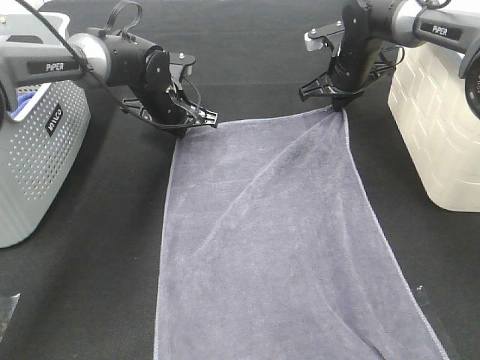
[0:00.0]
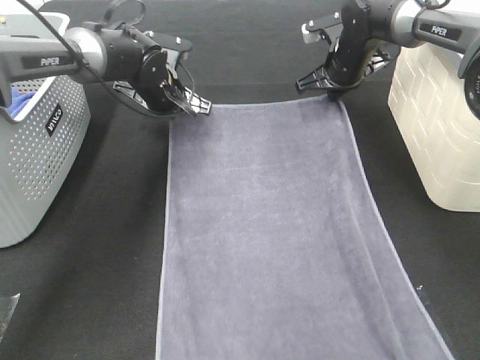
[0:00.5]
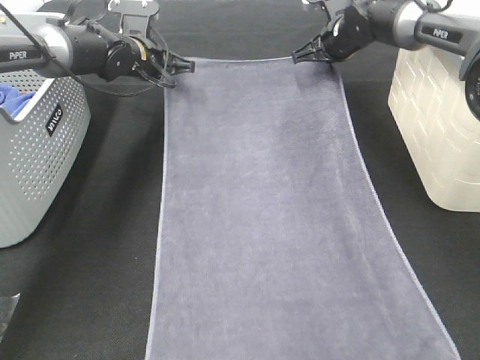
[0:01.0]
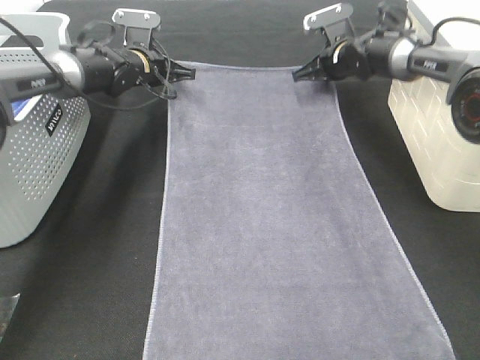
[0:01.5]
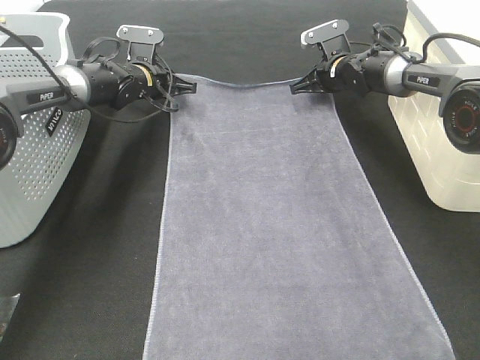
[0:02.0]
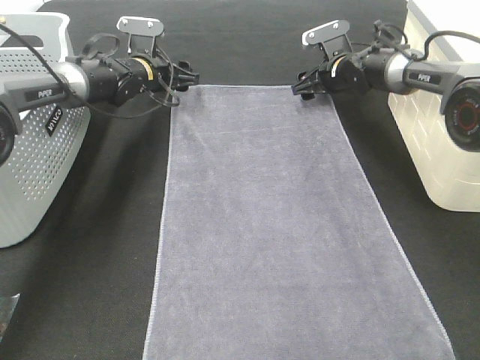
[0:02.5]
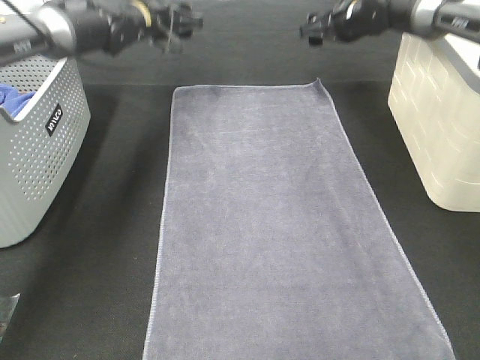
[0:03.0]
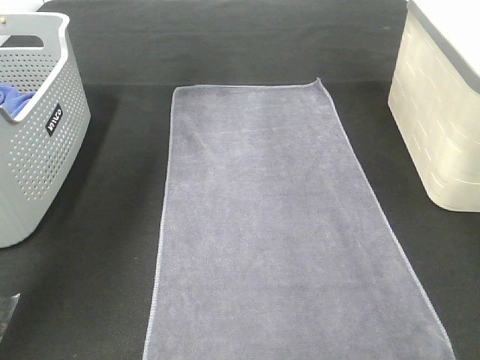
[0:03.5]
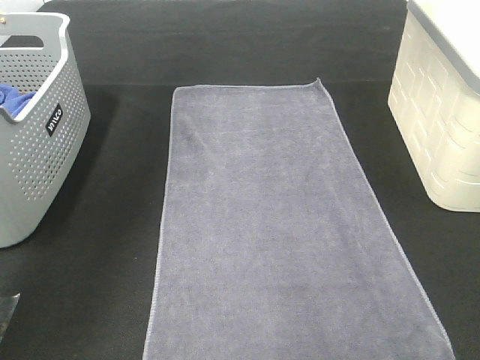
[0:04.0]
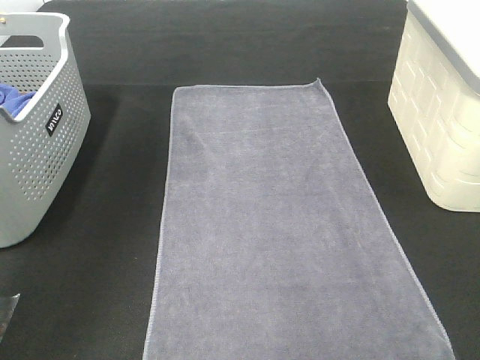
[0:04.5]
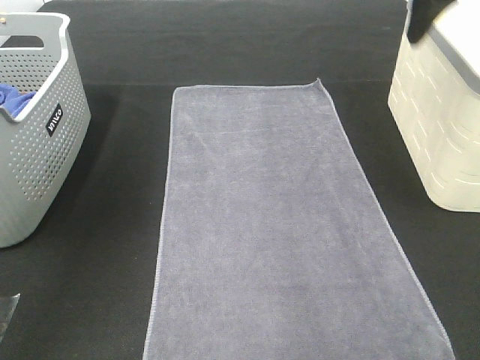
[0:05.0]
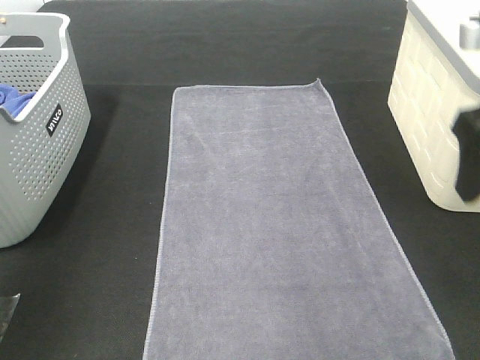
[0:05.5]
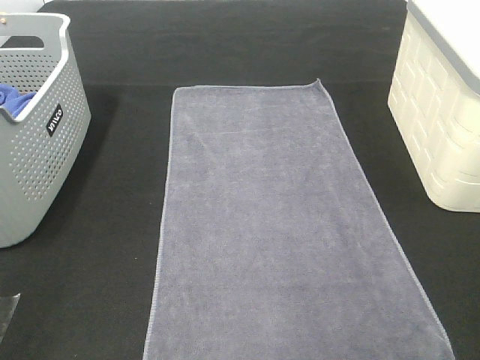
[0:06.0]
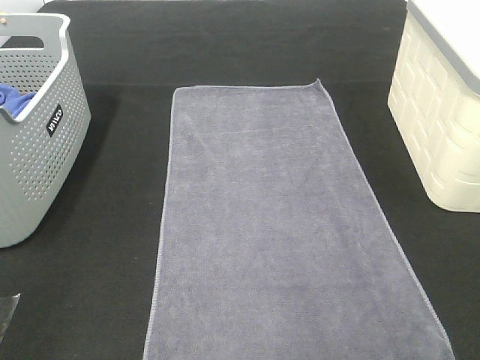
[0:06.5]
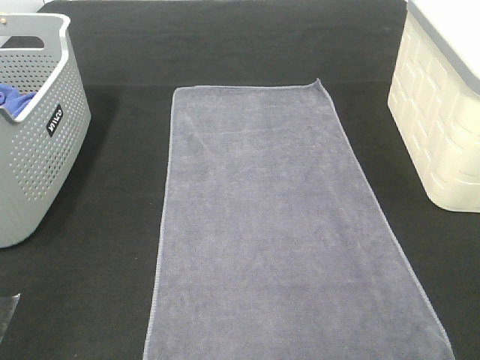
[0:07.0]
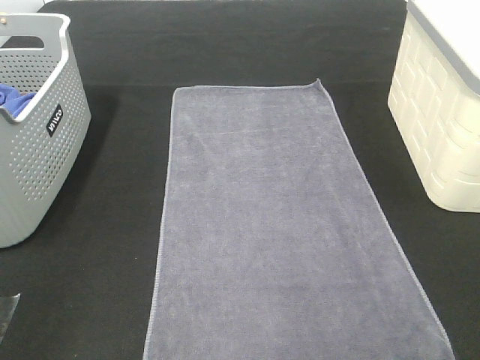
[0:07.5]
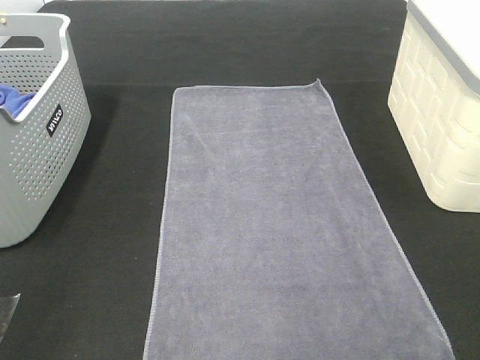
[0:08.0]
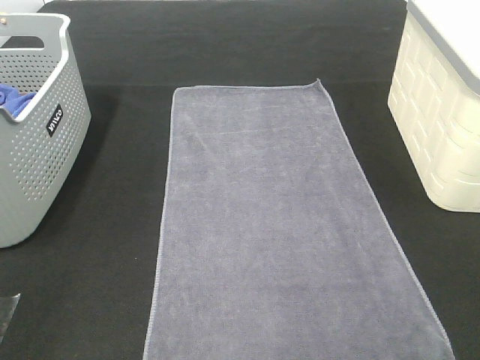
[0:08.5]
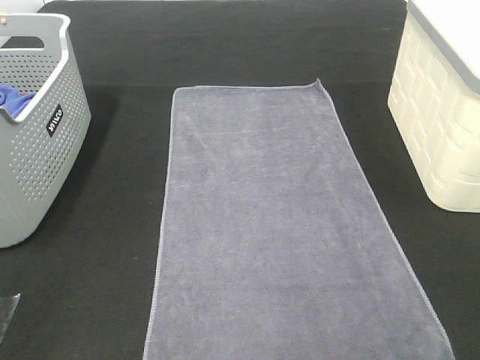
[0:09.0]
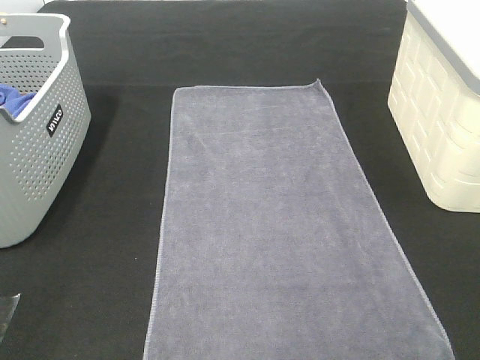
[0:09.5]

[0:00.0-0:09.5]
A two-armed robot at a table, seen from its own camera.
Task of the whole recording: Remove the towel and place it.
0:00.0 to 0:02.0: The right gripper goes approximately 5 cm downward. The left gripper travels forward and to the left by some 10 cm, and opens up.
0:02.0 to 0:04.0: Both grippers move upward, roughly 35 cm. The right gripper opens. Meanwhile the left gripper opens up.
0:04.0 to 0:05.5: The right gripper heads backward and downward, covering some 25 cm. The left gripper shifts approximately 30 cm backward.
0:05.5 to 0:07.5: The right gripper is displaced backward by some 20 cm.

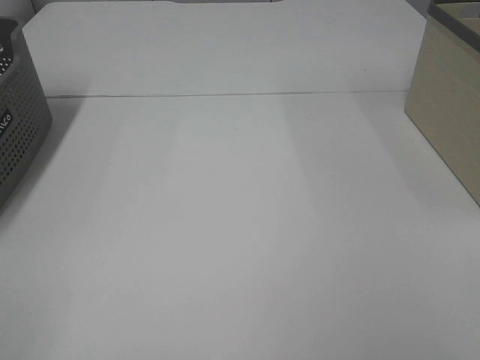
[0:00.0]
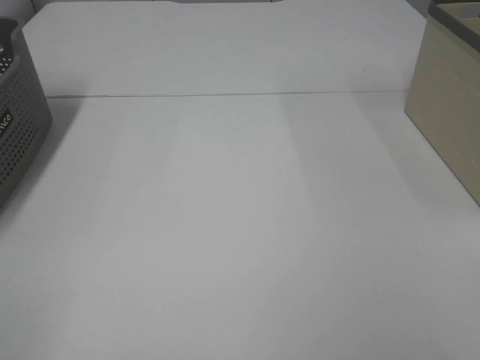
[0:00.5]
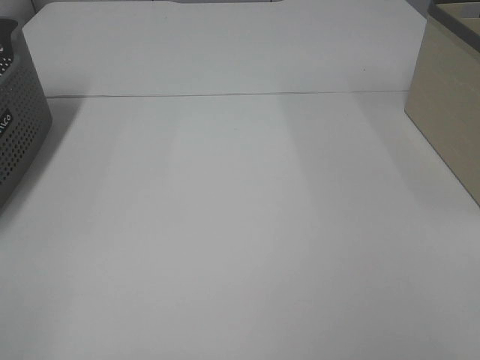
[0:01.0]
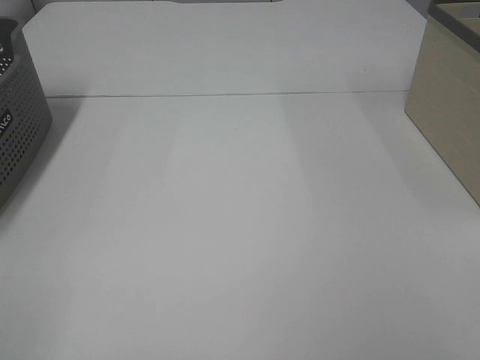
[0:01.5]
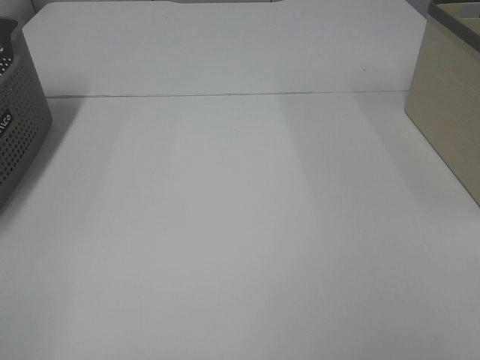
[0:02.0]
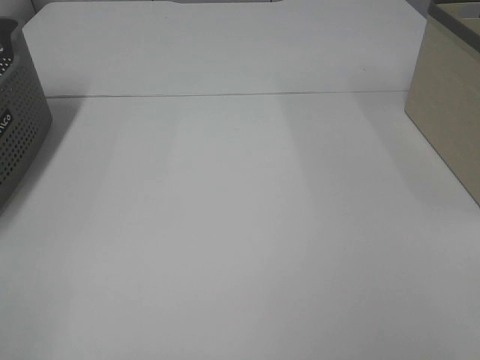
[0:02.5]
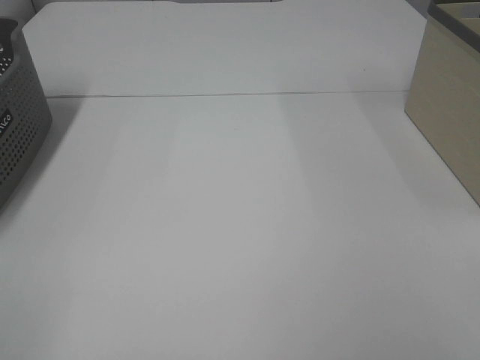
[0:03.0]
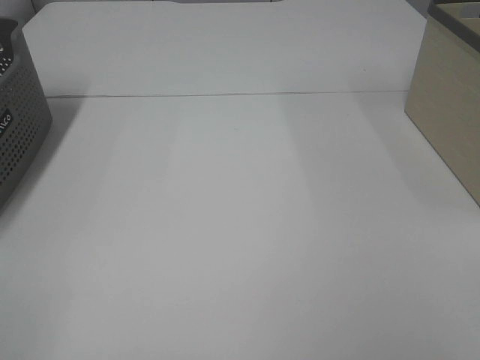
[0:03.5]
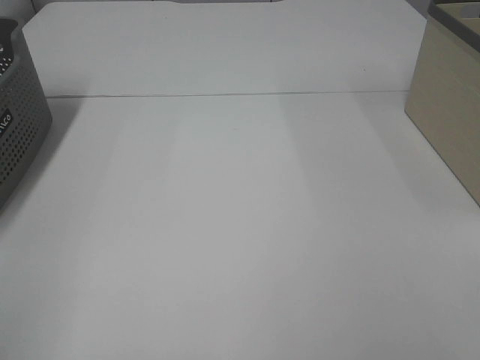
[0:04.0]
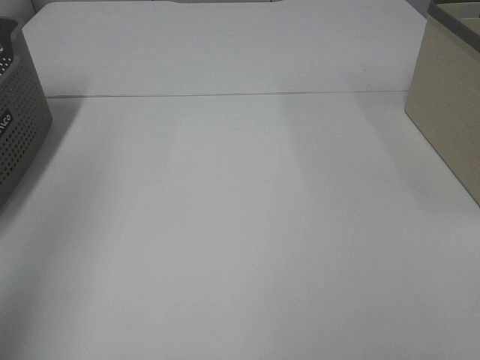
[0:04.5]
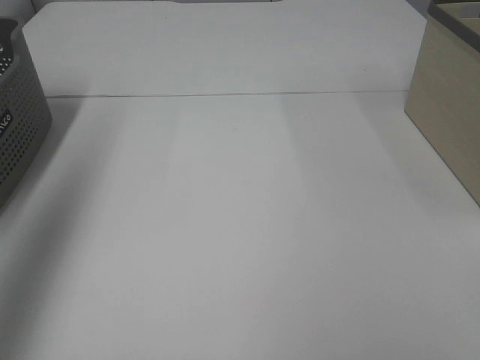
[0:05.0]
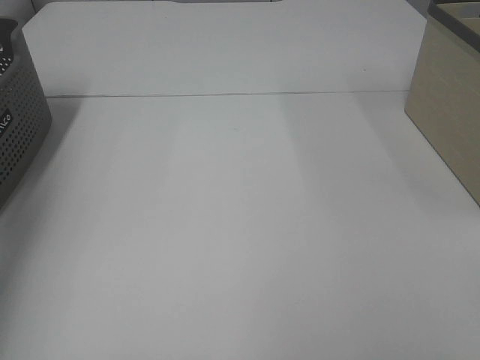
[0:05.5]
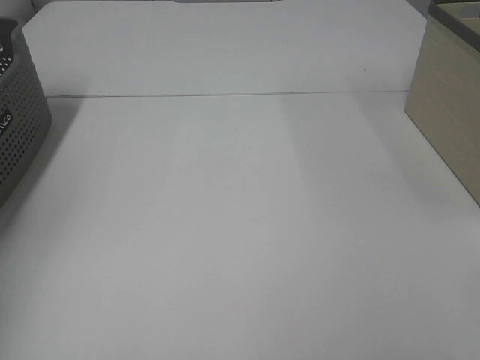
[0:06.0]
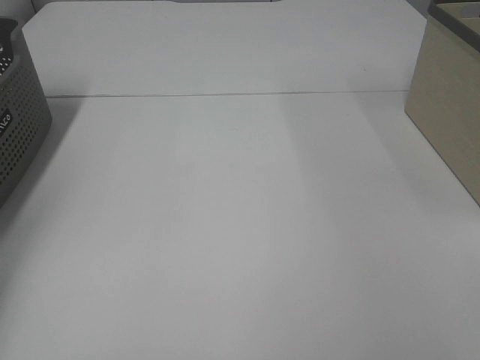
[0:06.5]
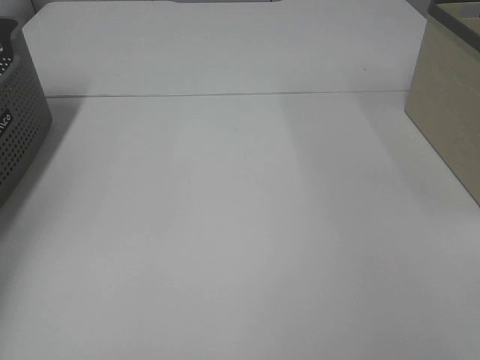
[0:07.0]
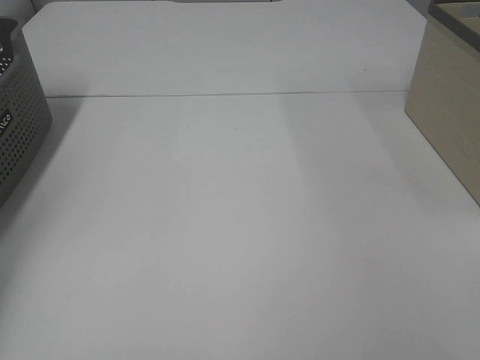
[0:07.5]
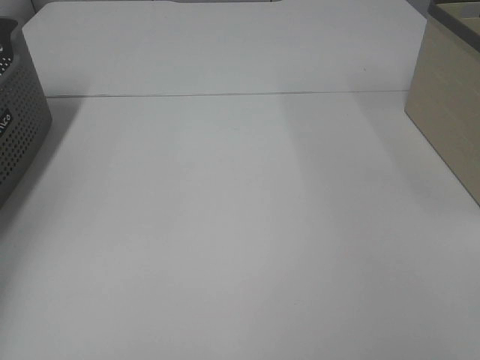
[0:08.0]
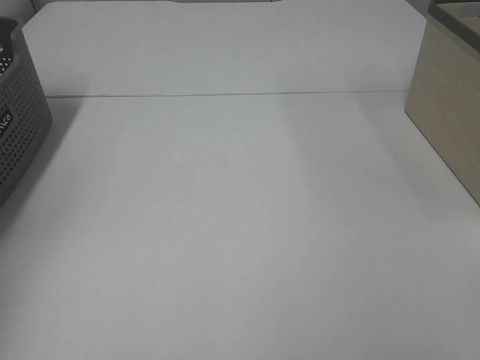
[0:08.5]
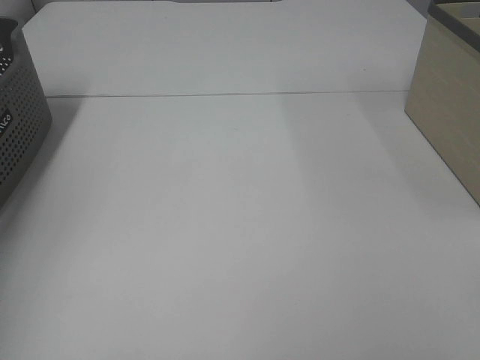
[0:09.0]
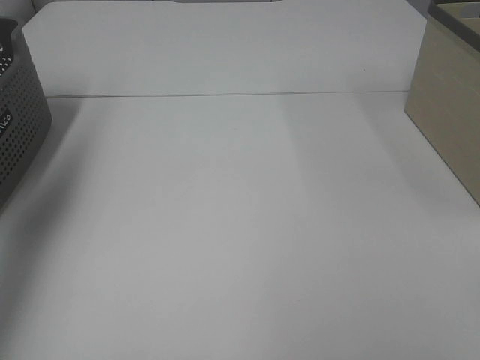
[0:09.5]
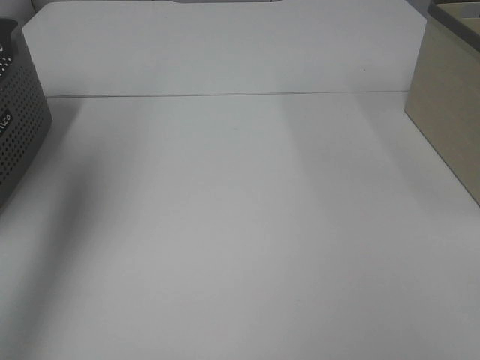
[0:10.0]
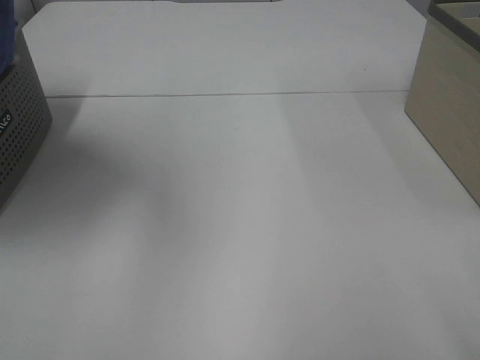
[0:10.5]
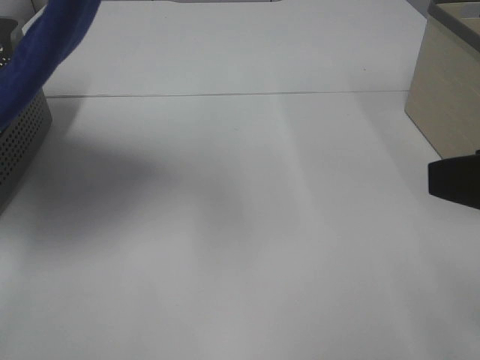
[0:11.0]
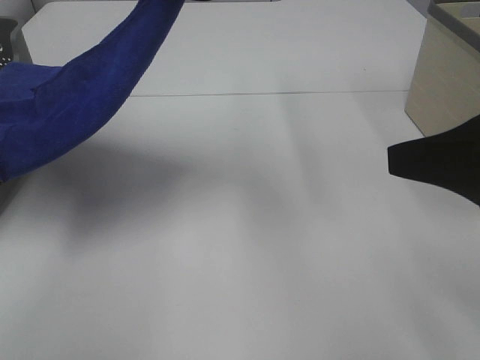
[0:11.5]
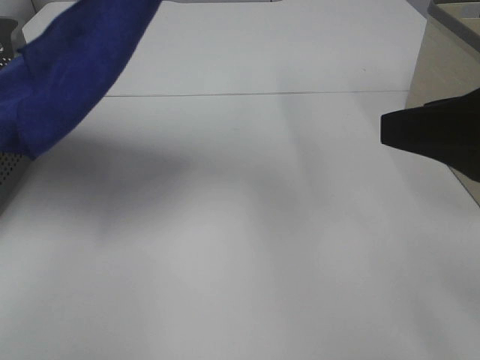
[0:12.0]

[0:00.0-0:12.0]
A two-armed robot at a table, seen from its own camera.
Task of the whole recording: Remove the towel and place it.
0:00.0 to 0:02.0: Both grippers stay about where they are.
0:04.0 to 0:06.0: The left gripper heads forward, covering some 35 cm.
0:08.0 to 0:10.0: The left gripper shifts roughly 35 cm upward, to the right and backward.
0:10.0 to 0:12.0: The right gripper moves forward, some 15 cm, while the left gripper shifts roughly 25 cm to the right.

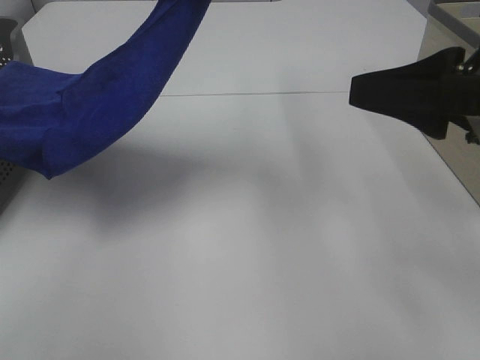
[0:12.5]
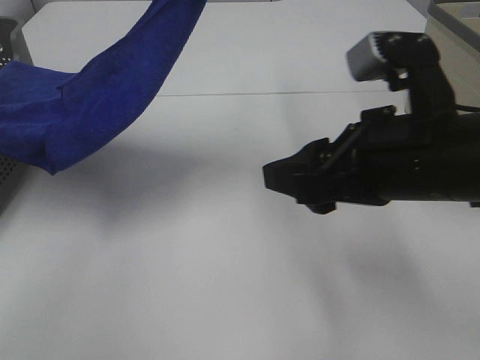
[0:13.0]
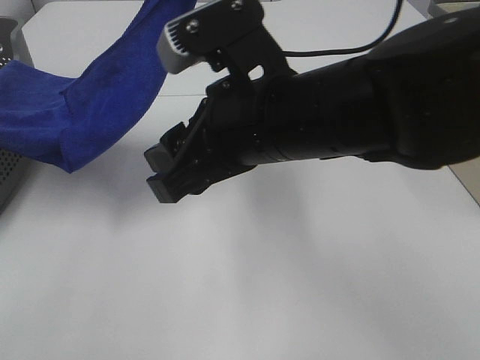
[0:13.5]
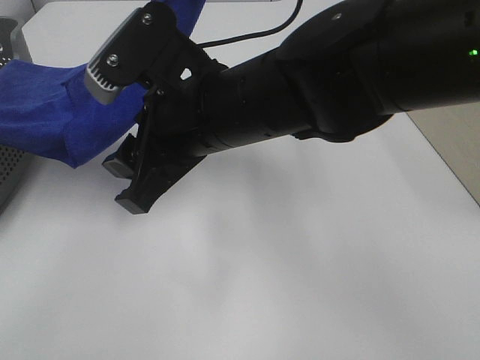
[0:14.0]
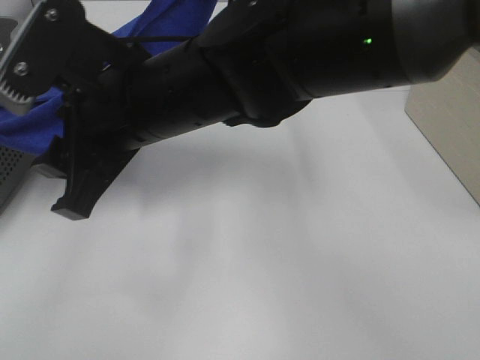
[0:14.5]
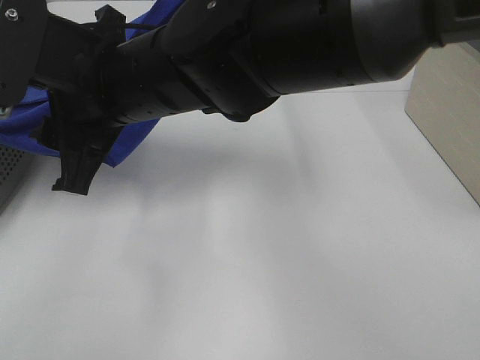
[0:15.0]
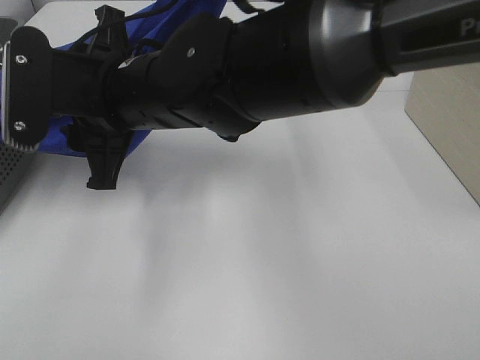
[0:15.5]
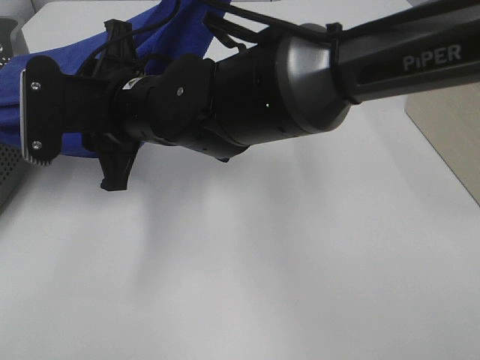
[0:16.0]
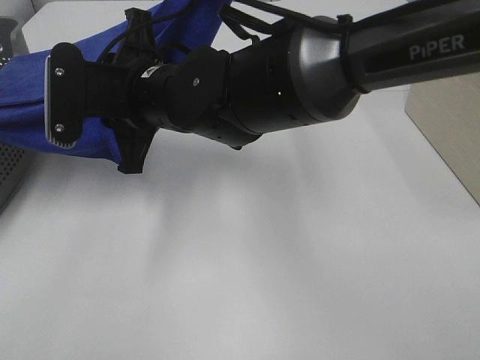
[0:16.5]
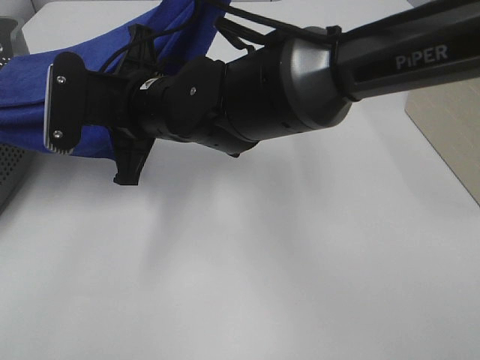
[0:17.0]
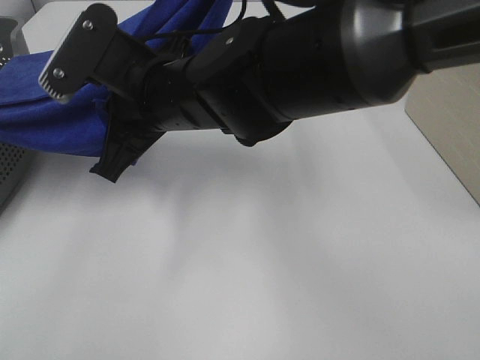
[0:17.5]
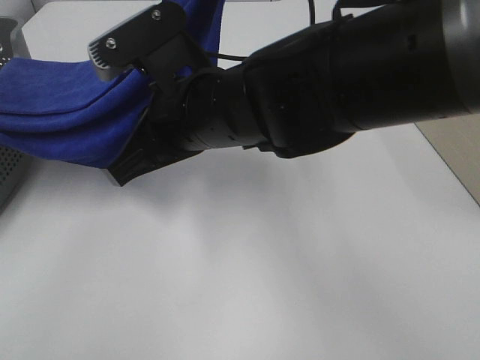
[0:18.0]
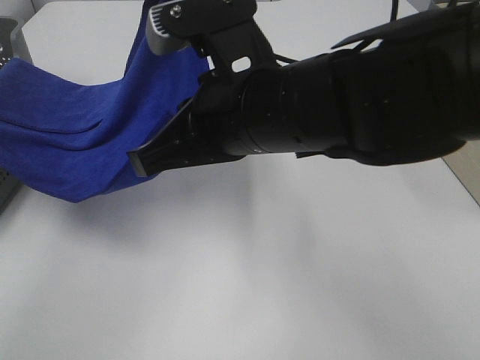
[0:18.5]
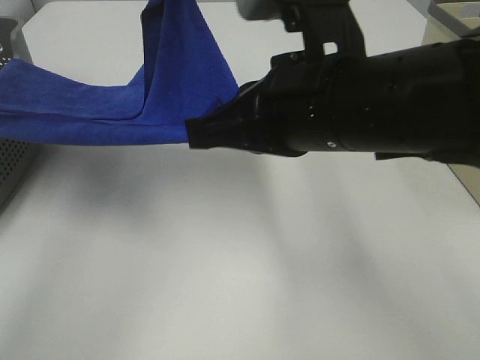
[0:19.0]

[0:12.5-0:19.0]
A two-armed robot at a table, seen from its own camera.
Task of the whole recording: Remove the towel and place it.
Step, 0:12.5 to 0:19.0: Right hand: grab a corner of the blue towel and straighten it.
0:12.5 to 0:14.5: The right gripper goes some 30 cm to the left.
0:14.5 to 0:17.0: The right gripper goes about 5 cm forward, and closes up.
0:17.0 to 0:19.0: The right gripper shifts roughly 20 cm to the right, backward and upward. The left gripper heads to the left, covering roughly 10 cm.
